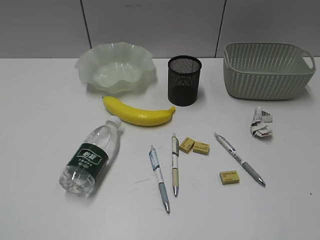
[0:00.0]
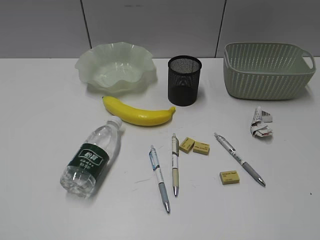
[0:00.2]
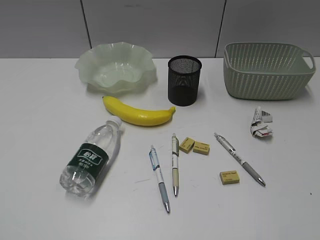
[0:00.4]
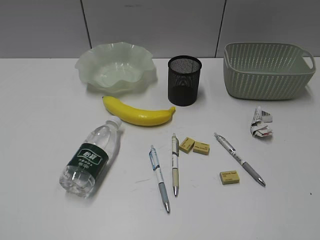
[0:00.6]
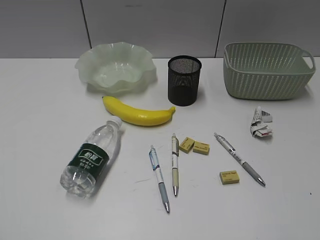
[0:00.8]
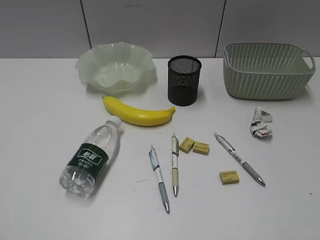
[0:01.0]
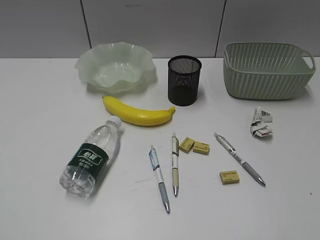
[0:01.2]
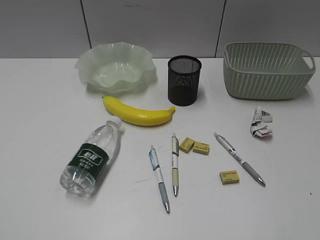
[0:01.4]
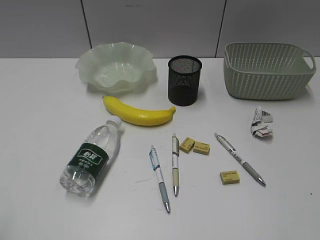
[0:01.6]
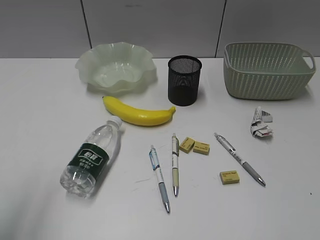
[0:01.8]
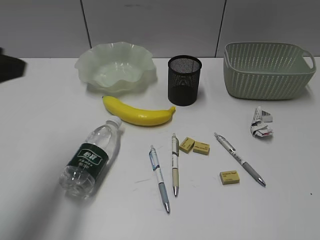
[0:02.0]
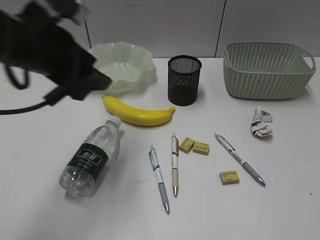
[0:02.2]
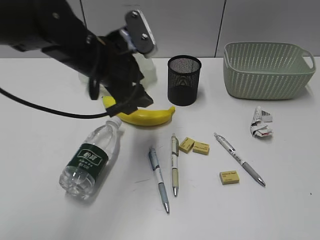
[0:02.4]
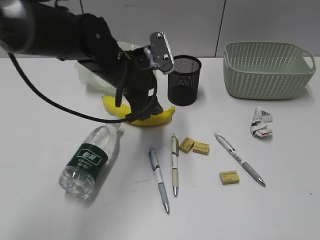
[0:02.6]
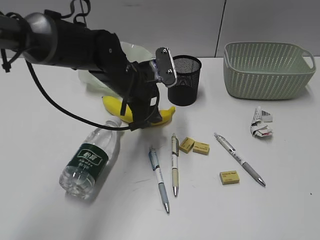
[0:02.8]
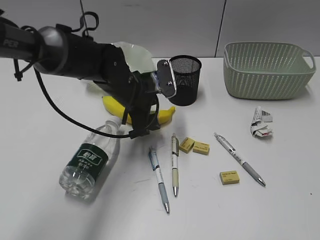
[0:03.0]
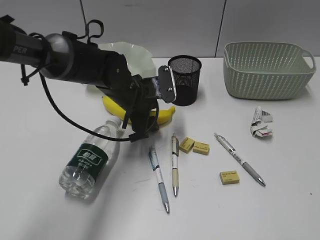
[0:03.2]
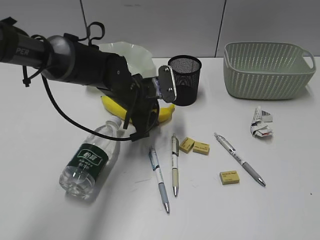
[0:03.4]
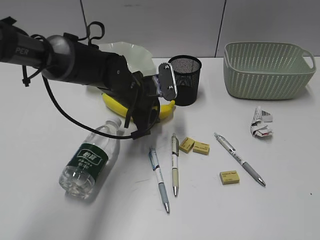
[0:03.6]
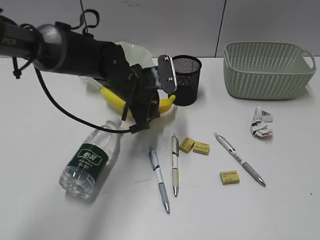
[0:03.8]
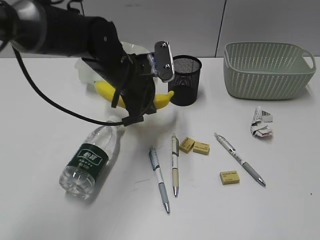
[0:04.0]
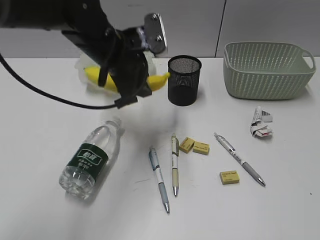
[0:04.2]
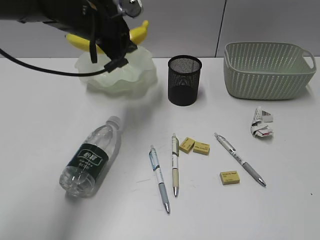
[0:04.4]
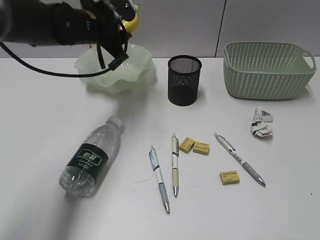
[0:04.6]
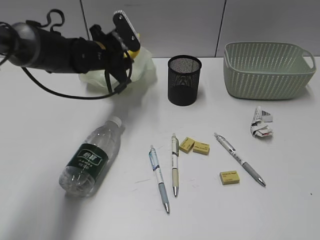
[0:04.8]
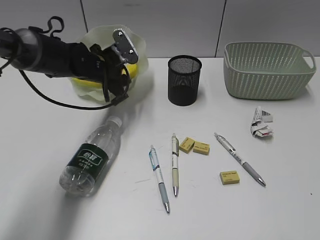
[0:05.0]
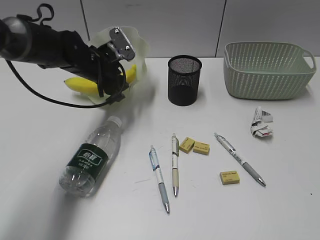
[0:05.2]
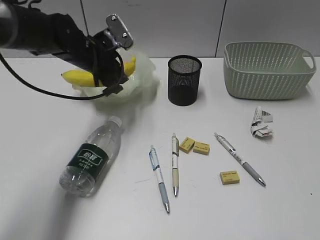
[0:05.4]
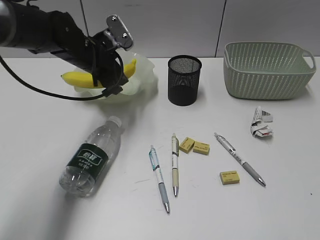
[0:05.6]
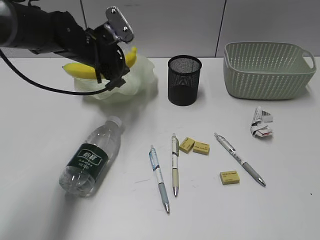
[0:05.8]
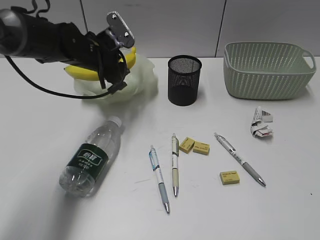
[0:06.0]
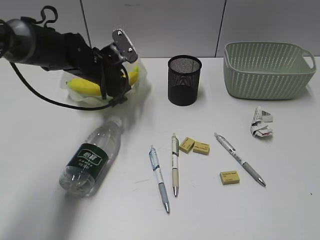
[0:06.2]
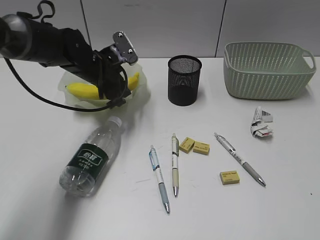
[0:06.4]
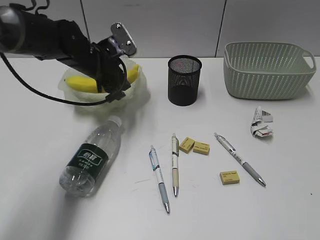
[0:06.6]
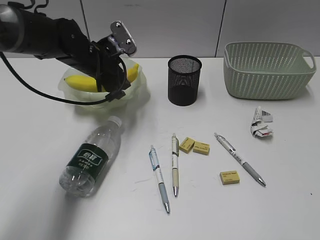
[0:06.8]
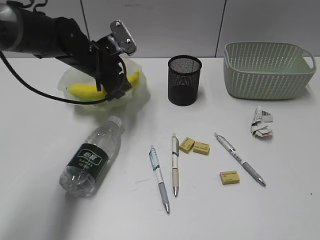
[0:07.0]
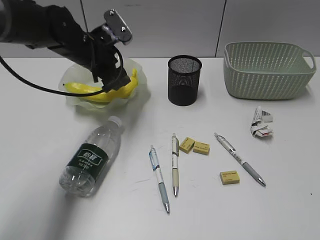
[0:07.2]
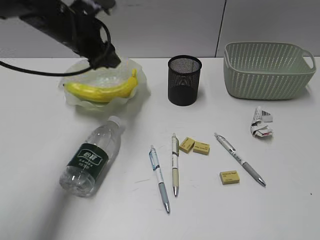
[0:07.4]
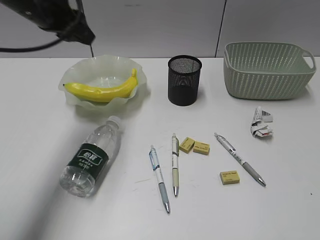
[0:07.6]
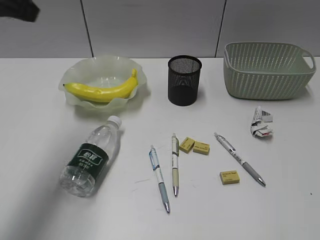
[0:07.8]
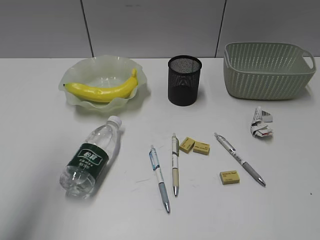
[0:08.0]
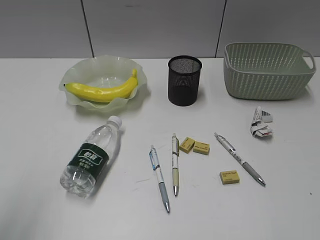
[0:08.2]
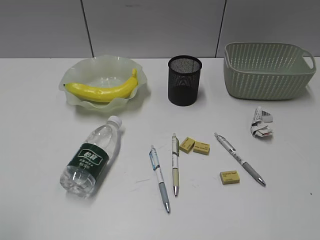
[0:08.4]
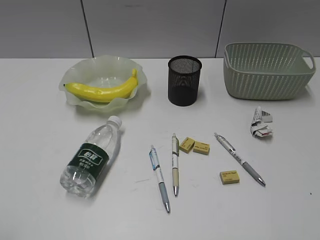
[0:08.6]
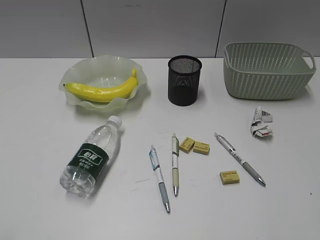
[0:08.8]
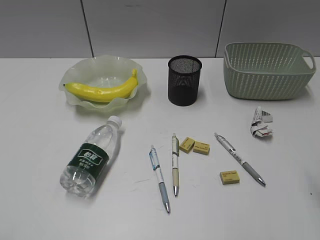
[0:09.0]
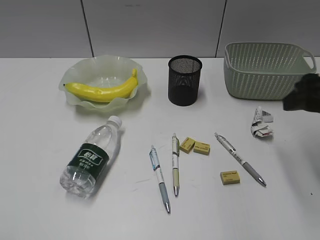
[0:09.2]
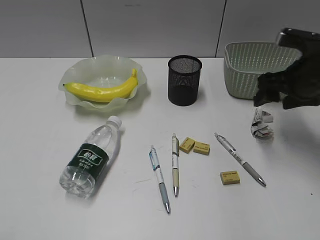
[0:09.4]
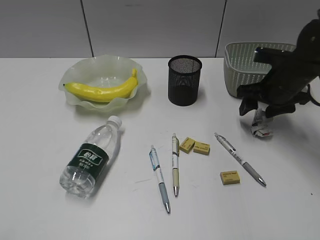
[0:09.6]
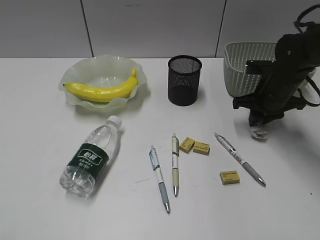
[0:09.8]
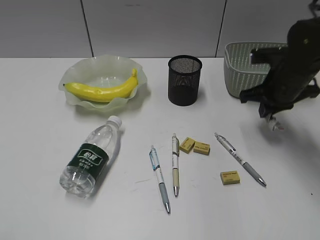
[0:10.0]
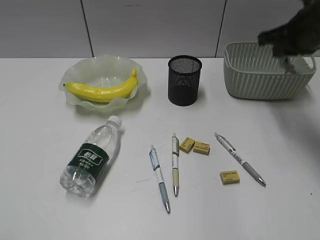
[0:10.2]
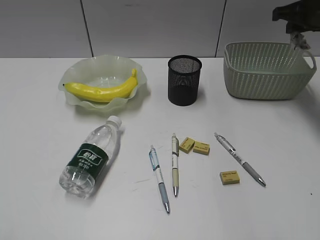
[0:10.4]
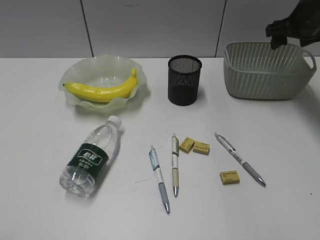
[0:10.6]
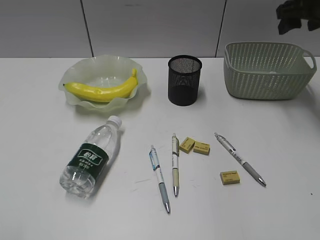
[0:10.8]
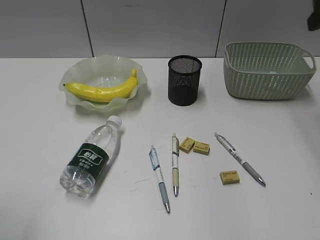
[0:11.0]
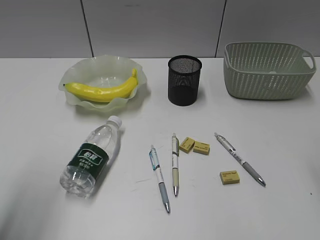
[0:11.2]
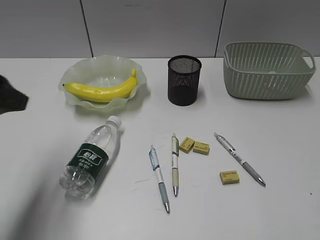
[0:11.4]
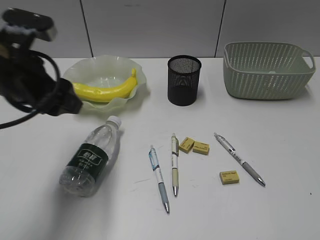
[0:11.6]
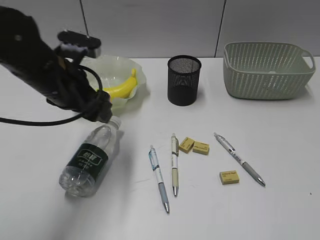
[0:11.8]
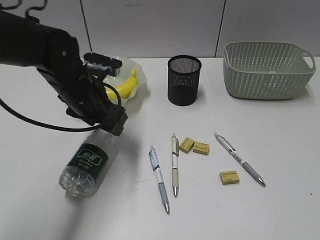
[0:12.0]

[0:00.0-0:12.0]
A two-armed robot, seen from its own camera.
Step, 0:01.6 to 0:03.2: Grasp the banana with left gripper.
Step, 0:03.4 to 0:07.2: Place the banana in the plate with left gripper.
Step, 0:07.4 to 0:09.8: Grasp the waste paper with right gripper.
Step, 0:10.0 to 0:10.6: Place the waste paper in the basket with right gripper.
0:01.6 to 0:03.0: The left gripper travels forward, to the right and downward by some 50 cm, and opens its fingers.
0:03.0 to 0:04.4: The left gripper heads upward and to the left, covering some 15 cm, and closes its fingers.
0:04.4 to 0:06.0: The left gripper moves downward, some 10 cm.
0:06.0 to 0:07.6: The left gripper is displaced upward, backward and to the left by some 15 cm, and opens and closes again.
0:07.6 to 0:09.0: The right gripper shifts about 15 cm forward, while the left gripper goes approximately 40 cm backward.
0:09.0 to 0:10.4: The right gripper goes approximately 30 cm forward, and closes its fingers.
0:10.4 to 0:12.0: The left gripper heads forward and to the right, covering roughly 40 cm, and opens up. The right gripper goes roughly 40 cm backward, and opens up.

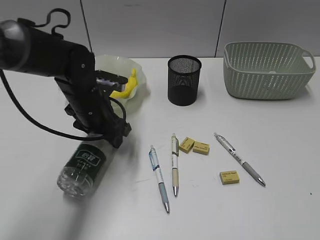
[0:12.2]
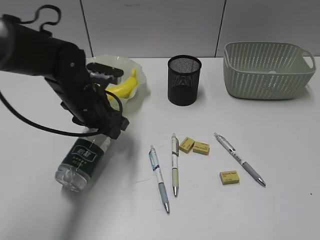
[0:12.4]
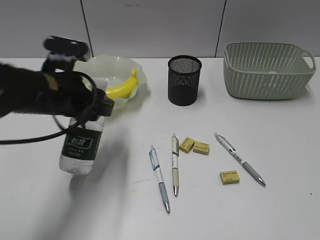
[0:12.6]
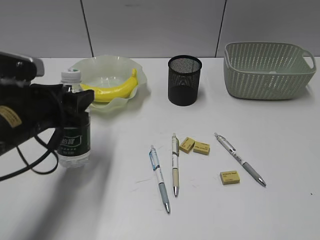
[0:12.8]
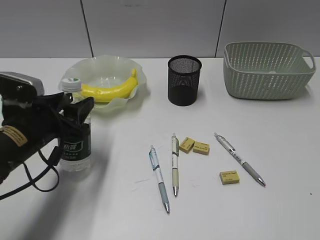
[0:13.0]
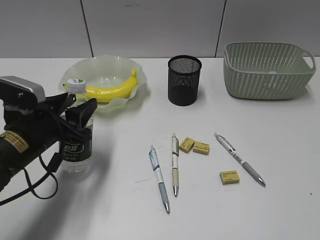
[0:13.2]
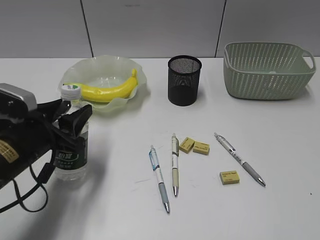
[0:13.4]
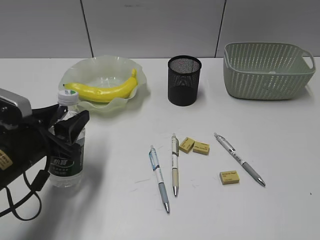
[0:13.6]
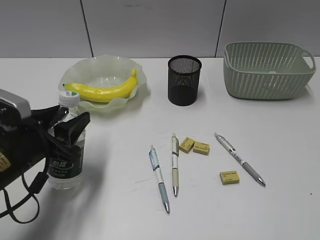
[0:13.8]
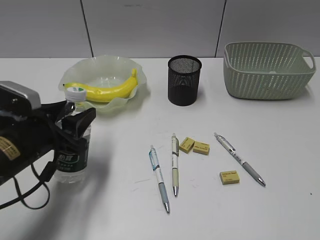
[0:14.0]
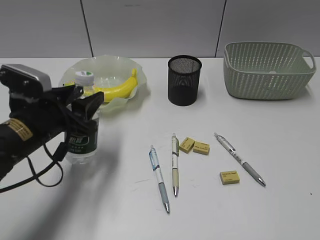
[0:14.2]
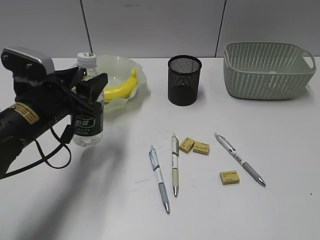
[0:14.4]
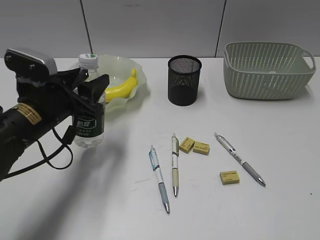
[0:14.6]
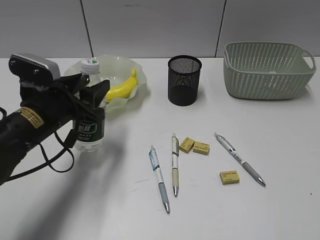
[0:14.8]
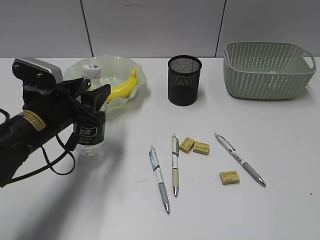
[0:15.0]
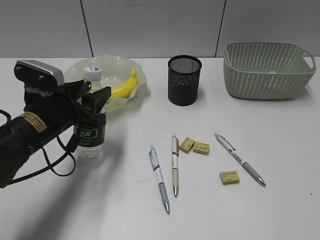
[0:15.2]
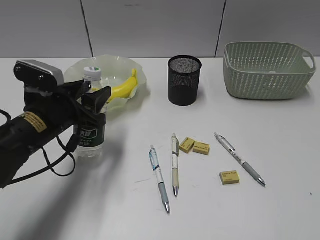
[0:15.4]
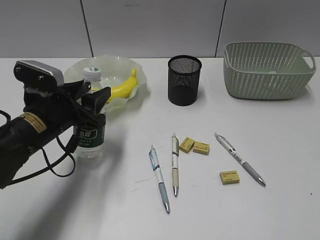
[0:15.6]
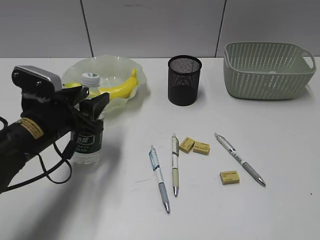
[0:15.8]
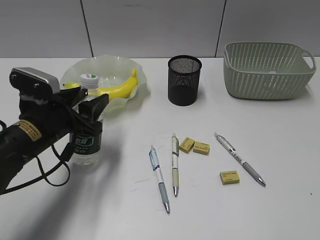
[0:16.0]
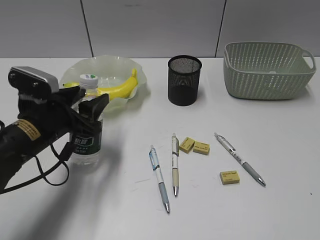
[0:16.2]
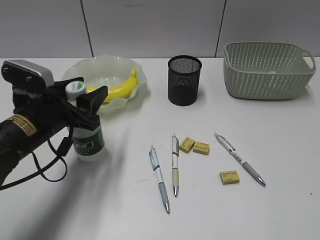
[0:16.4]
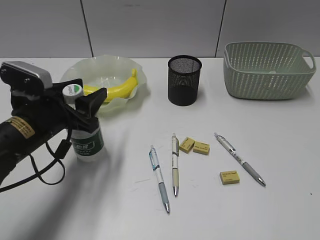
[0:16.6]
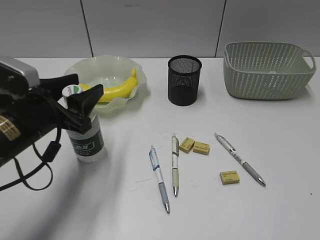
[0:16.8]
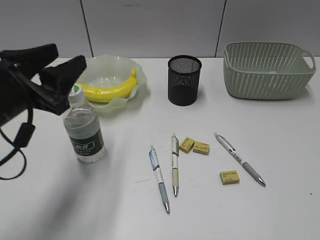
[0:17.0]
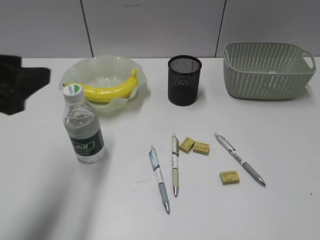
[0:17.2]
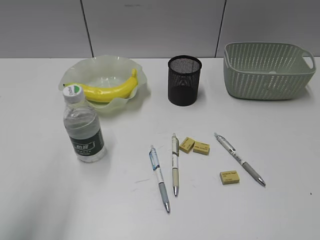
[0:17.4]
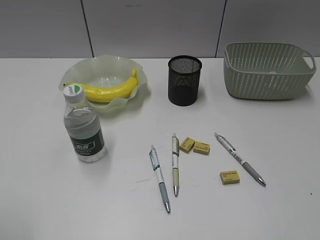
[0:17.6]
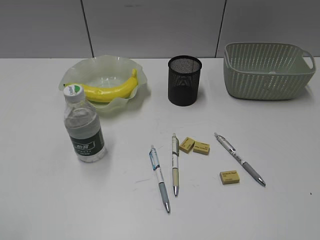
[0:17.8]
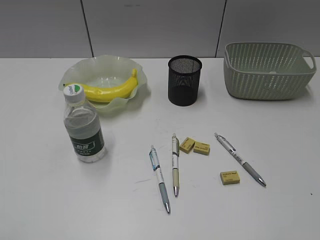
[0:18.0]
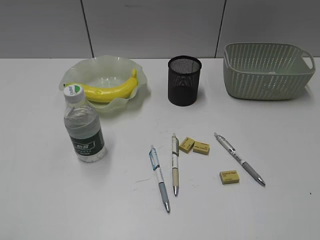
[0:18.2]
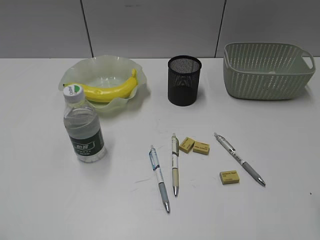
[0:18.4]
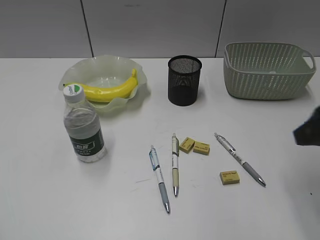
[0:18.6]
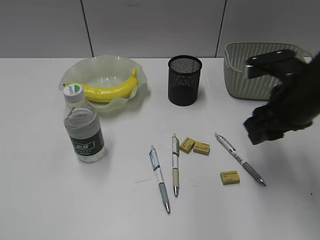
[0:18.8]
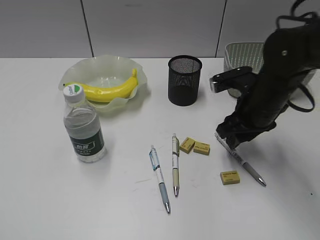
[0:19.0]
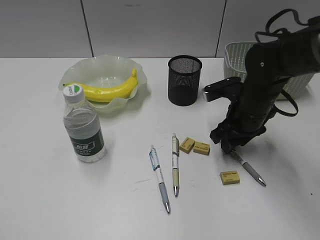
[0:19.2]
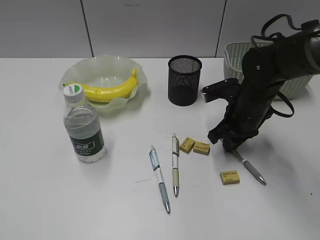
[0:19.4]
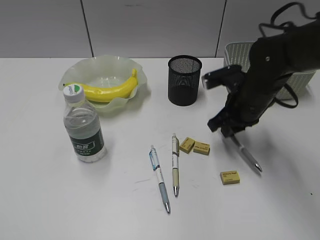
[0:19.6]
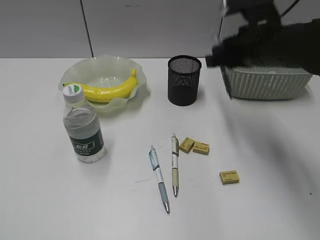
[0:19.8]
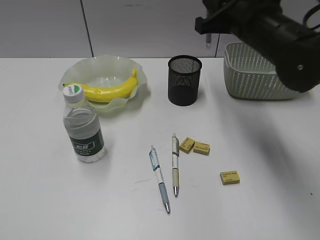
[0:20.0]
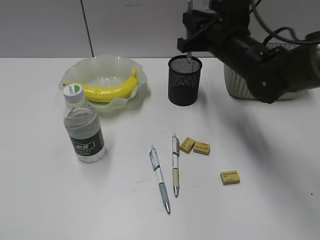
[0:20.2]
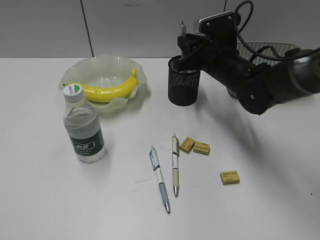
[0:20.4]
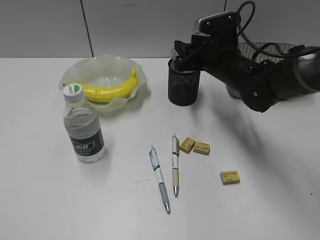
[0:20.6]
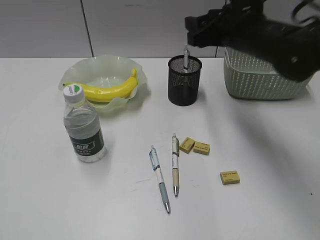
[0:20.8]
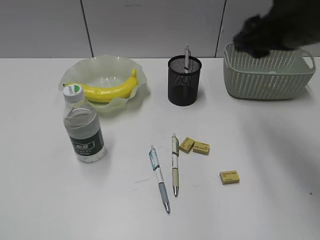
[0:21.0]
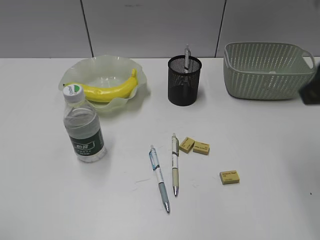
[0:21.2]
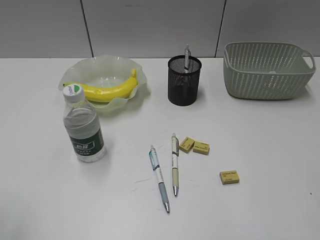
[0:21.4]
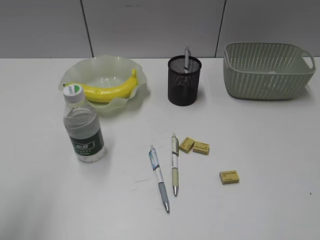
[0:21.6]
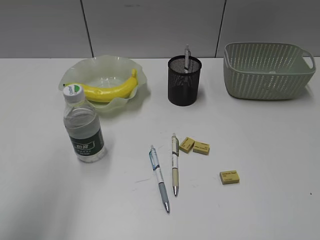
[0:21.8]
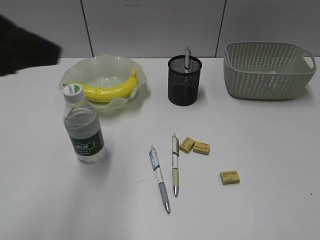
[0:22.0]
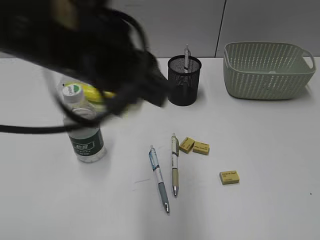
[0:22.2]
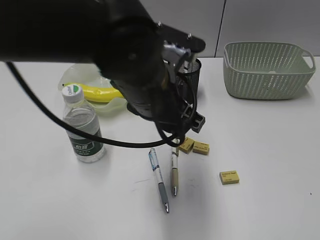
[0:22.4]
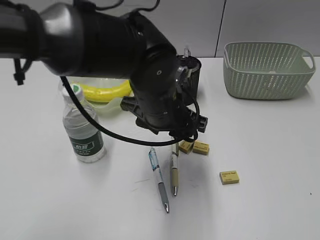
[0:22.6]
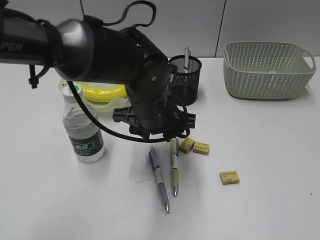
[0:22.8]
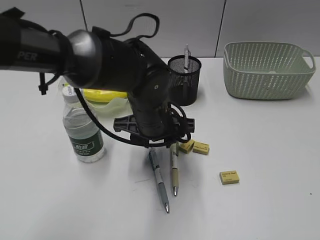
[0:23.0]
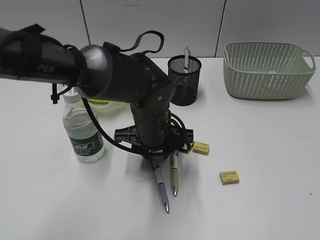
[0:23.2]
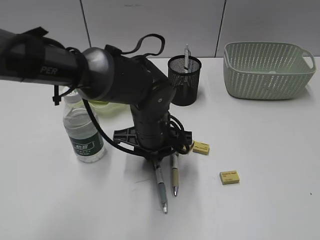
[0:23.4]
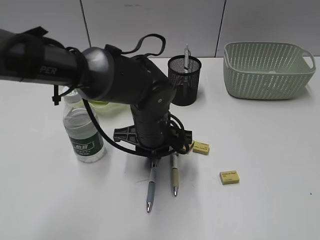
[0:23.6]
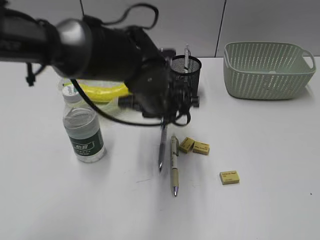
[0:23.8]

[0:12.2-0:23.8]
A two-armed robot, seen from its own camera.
Step, 0:12.4 to 0:16.8: Stand the bottle with left gripper.
Step, 0:17.0 to 0:19.4: Grasp the gray pen with right gripper.
Step, 0:19.6 to 0:20.6: Place the gray pen in pen holder with right gripper.
Step, 0:20.8 to 0:23.4: Grasp the blue pen with left gripper.
0:12.2 to 0:13.6: The left gripper goes approximately 15 cm backward and to the left.
0:13.6 to 0:15.0: The left gripper goes about 5 cm forward.
0:15.0 to 0:16.6: The grippers move only a little.
0:16.6 to 0:18.0: The left gripper travels backward, to the left and upward by roughly 35 cm.
0:18.0 to 0:19.4: The right gripper shifts about 40 cm forward, downward and to the left, and closes its fingers.
0:19.4 to 0:21.0: The right gripper goes up and down, roughly 20 cm each way, reversing 2 times, and opens its fingers.
0:21.0 to 0:22.4: The left gripper is displaced to the right and forward by approximately 40 cm. Meanwhile the right gripper heads backward and to the right, covering some 30 cm.
0:22.4 to 0:23.8: The left gripper moves downward and forward, approximately 10 cm, and closes.
